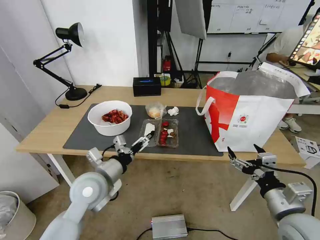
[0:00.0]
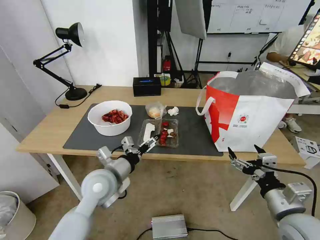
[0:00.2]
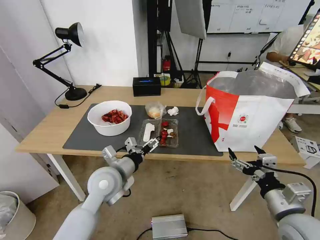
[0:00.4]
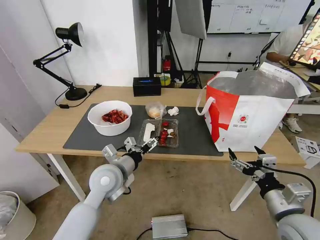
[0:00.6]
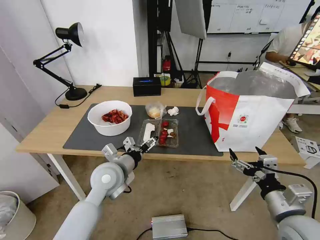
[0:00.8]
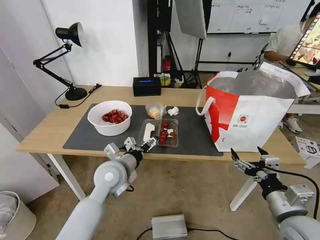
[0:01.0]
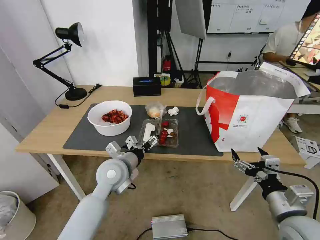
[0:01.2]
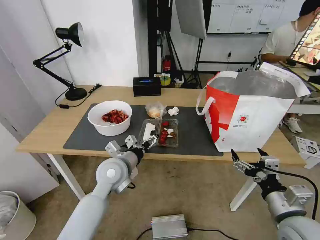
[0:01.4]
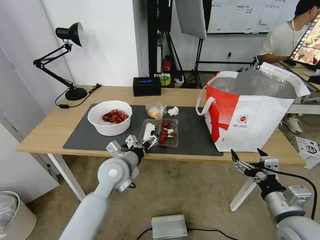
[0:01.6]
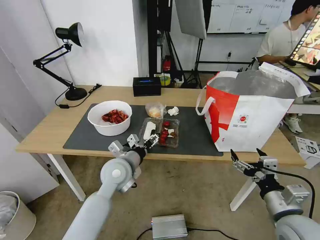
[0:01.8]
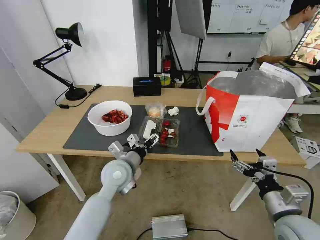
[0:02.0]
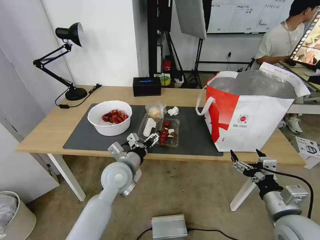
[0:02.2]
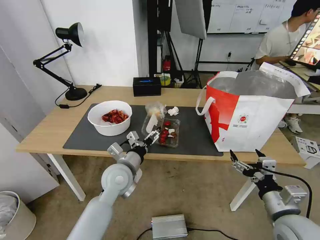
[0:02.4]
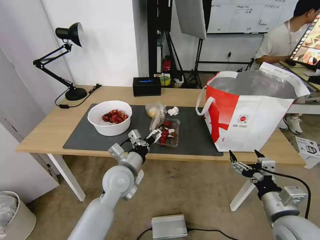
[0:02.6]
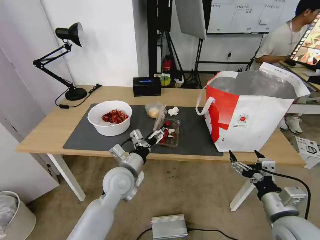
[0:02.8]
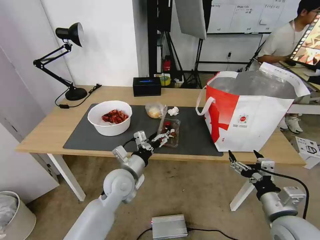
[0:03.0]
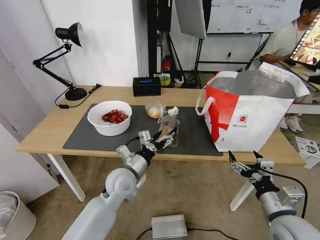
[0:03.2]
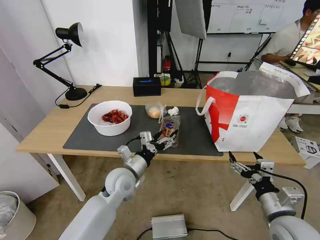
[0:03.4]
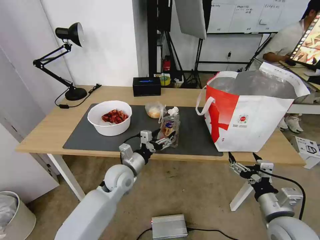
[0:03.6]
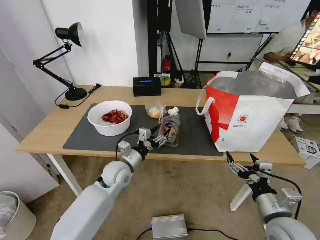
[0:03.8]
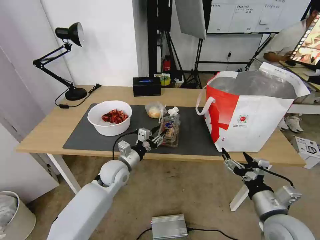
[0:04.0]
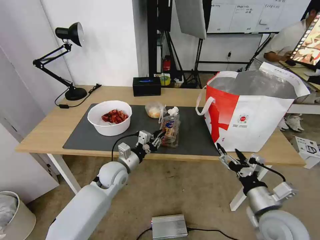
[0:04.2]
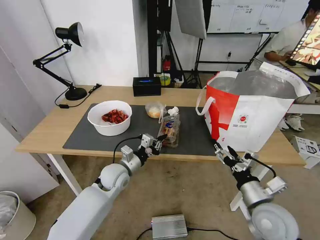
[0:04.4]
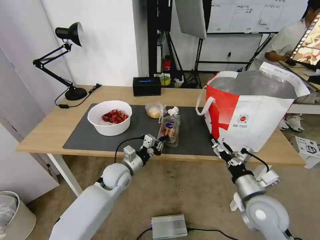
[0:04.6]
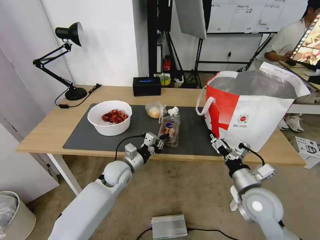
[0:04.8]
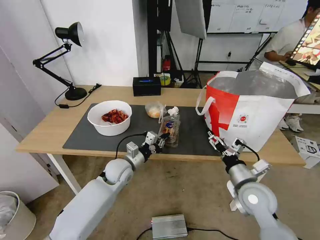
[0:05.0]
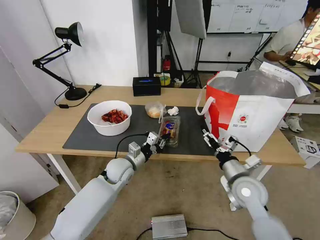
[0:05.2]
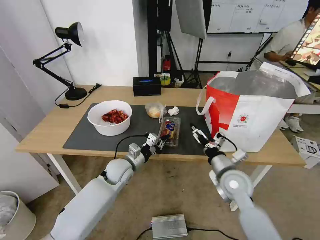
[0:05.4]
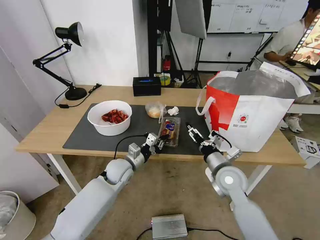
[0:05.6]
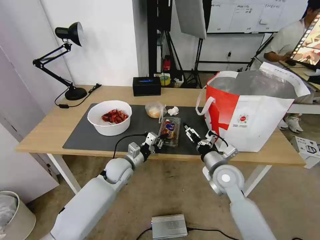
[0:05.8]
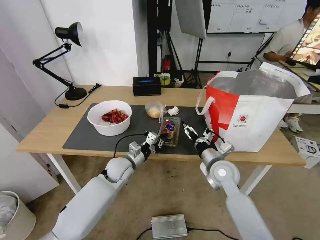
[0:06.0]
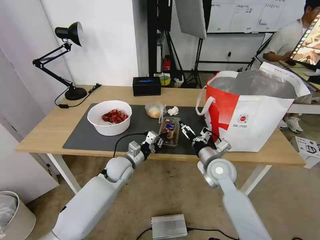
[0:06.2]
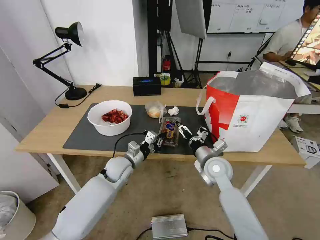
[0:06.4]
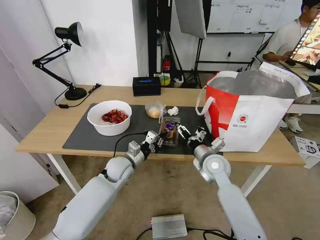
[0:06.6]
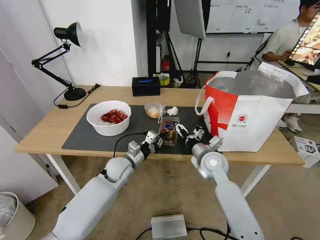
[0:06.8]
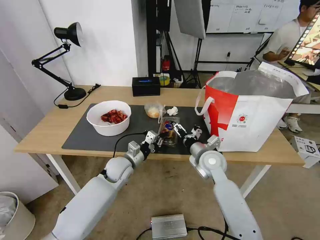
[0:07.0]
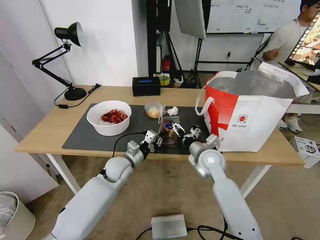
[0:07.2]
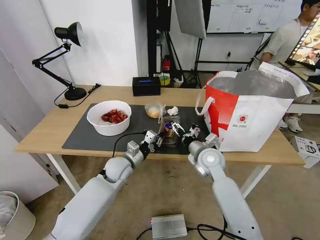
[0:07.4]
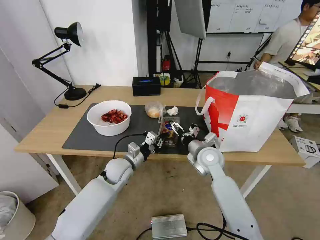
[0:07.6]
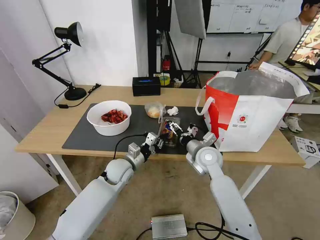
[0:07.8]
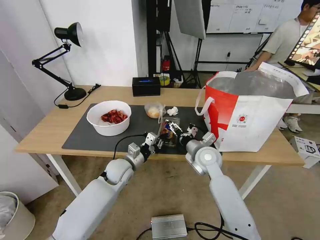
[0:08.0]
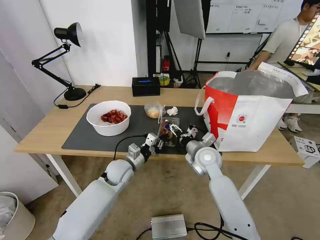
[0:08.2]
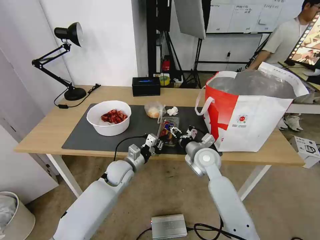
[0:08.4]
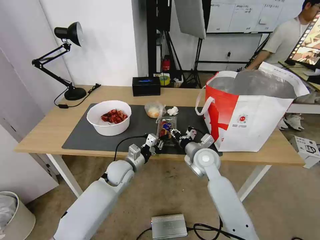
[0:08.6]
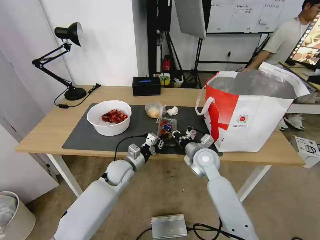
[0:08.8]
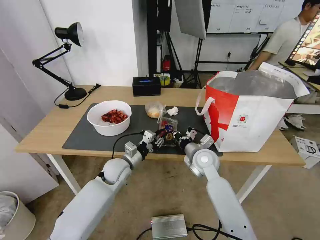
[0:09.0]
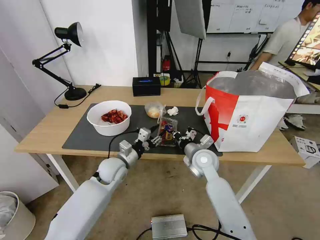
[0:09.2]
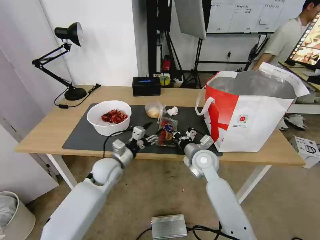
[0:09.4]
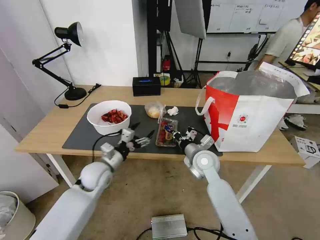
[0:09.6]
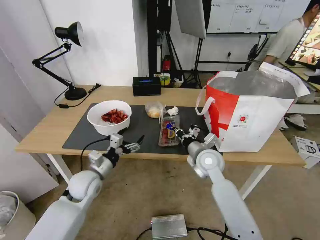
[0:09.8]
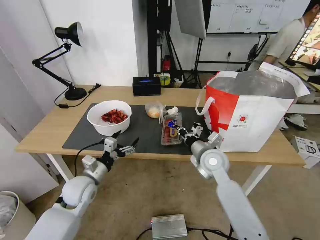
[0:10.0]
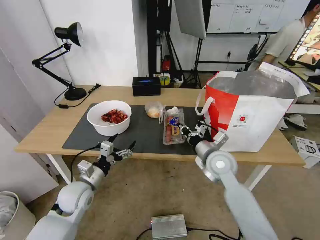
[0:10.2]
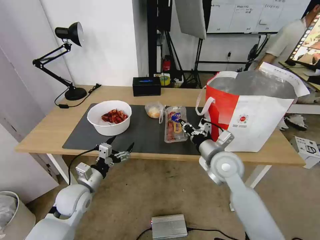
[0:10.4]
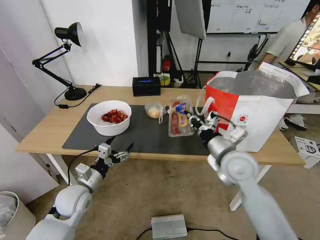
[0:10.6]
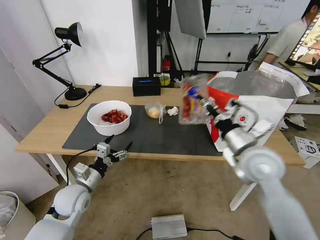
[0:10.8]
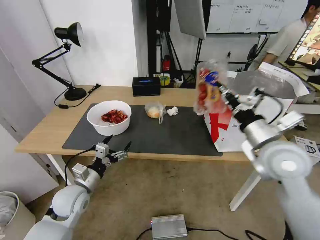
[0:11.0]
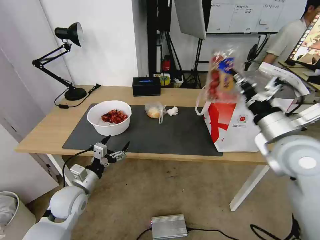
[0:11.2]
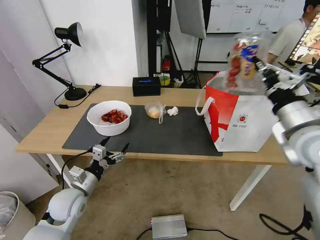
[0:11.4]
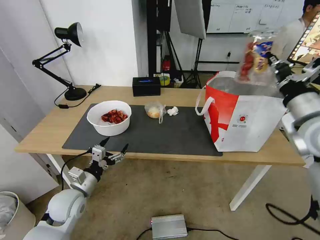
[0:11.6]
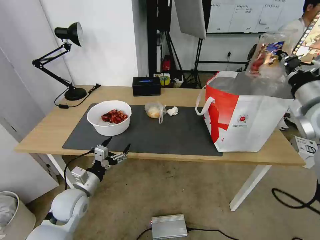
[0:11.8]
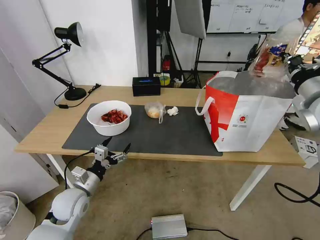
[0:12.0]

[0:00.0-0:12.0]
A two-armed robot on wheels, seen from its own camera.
Task of the whole recording: Pick up the trash from the table and place it into the takeout bag.
0:00.0 to 0:01.6: The left gripper shifts approximately 10 cm forward and to the right.
0:03.0 to 0:04.4: The left gripper travels forward by roughly 5 cm, and closes up.
0:04.4 to 0:06.0: The right gripper shifts some 20 cm forward and to the left.
0:06.0 to 0:07.6: The right gripper moves some 5 cm.
0:07.6 to 0:09.0: The right gripper closes its fingers.
0:09.0 to 0:10.4: The right gripper travels upward and backward by some 10 cm, while the left gripper travels to the left and backward by about 15 cm, and opens up.
0:10.4 to 0:12.0: The right gripper moves upward and to the right, approximately 30 cm.

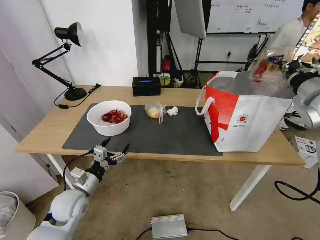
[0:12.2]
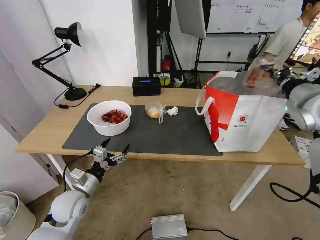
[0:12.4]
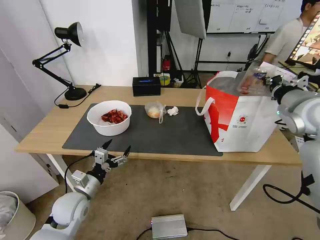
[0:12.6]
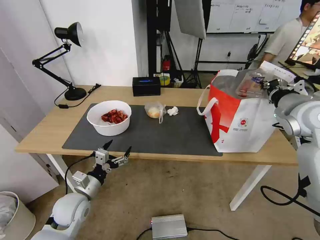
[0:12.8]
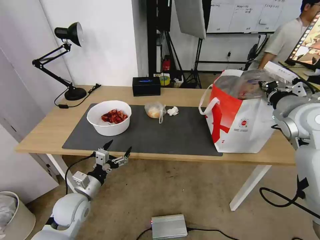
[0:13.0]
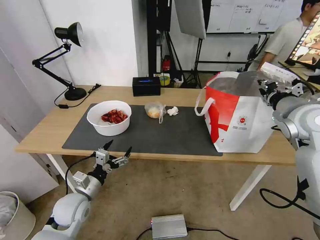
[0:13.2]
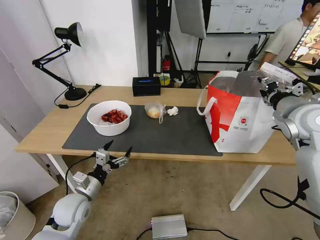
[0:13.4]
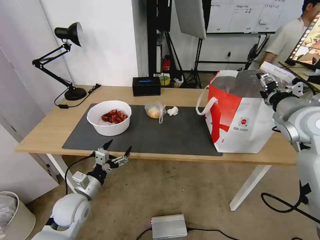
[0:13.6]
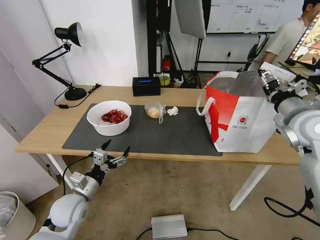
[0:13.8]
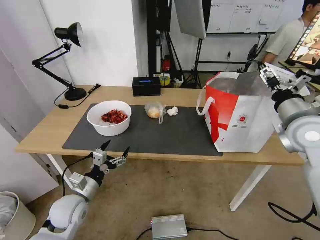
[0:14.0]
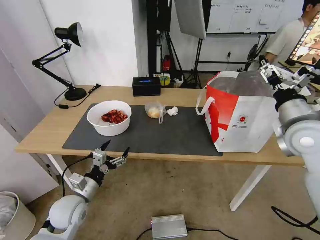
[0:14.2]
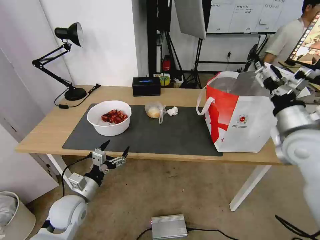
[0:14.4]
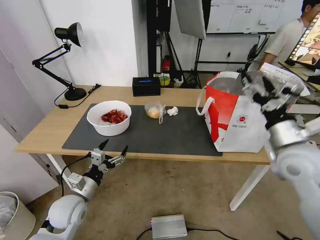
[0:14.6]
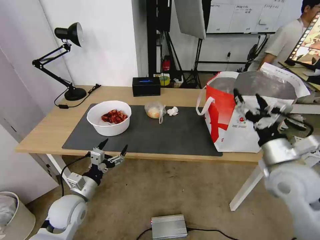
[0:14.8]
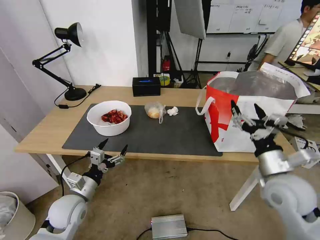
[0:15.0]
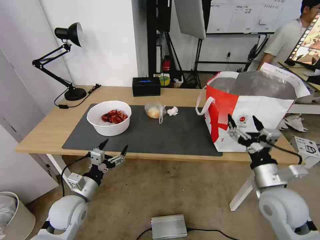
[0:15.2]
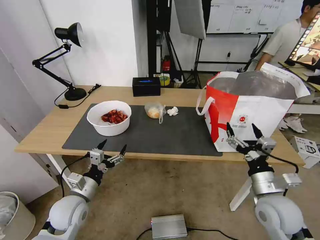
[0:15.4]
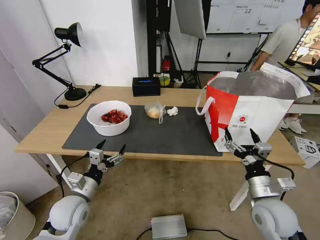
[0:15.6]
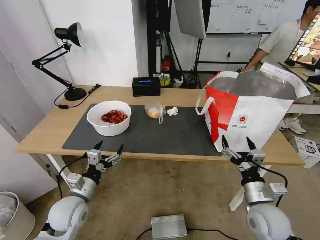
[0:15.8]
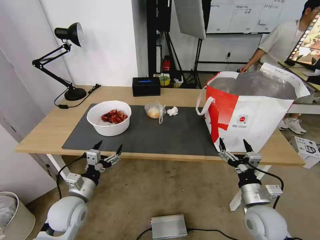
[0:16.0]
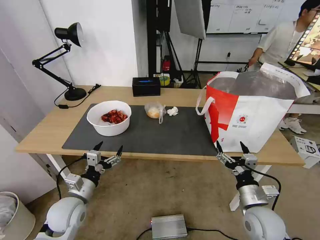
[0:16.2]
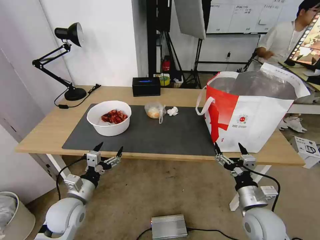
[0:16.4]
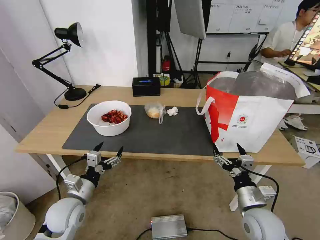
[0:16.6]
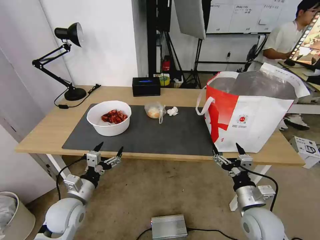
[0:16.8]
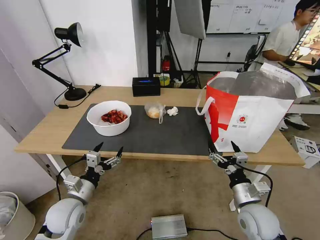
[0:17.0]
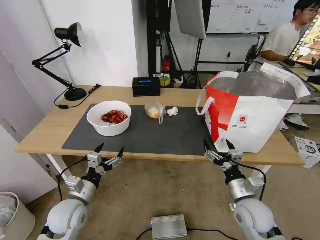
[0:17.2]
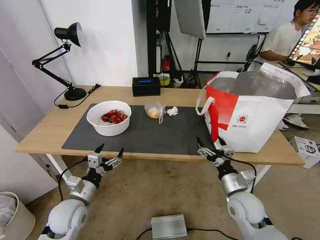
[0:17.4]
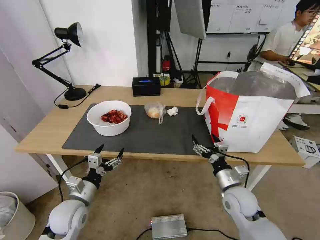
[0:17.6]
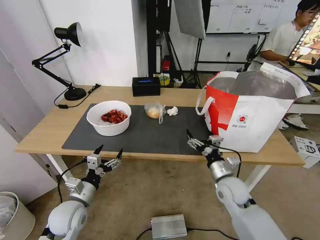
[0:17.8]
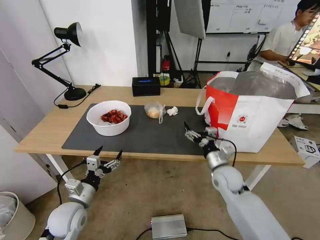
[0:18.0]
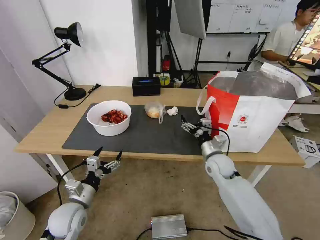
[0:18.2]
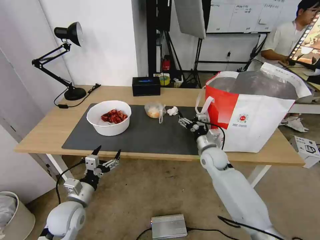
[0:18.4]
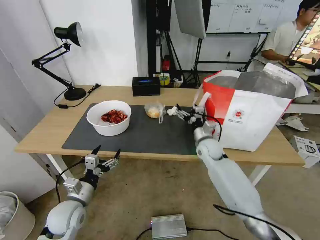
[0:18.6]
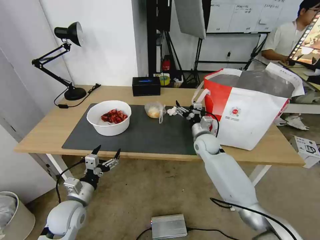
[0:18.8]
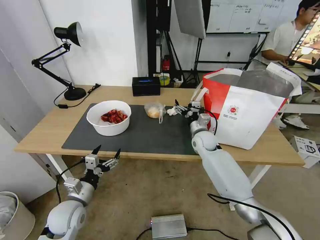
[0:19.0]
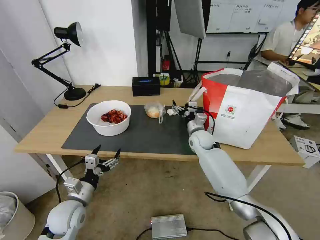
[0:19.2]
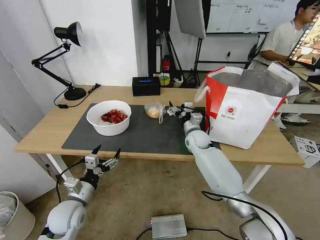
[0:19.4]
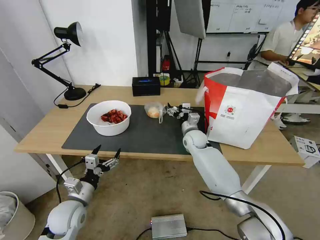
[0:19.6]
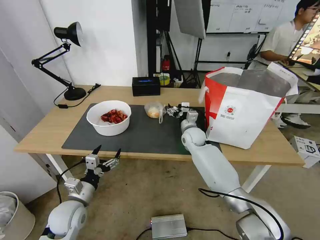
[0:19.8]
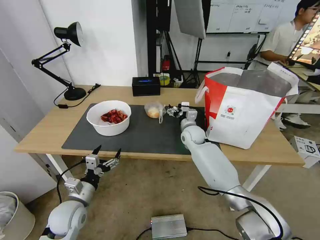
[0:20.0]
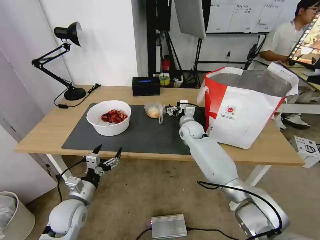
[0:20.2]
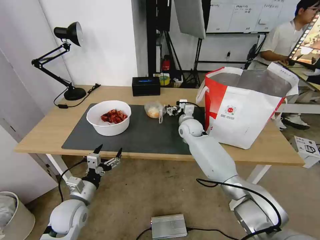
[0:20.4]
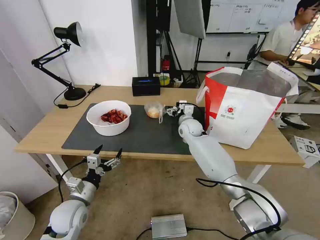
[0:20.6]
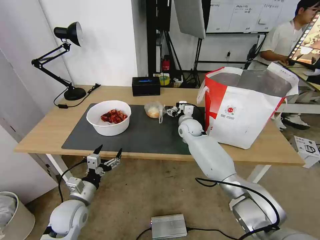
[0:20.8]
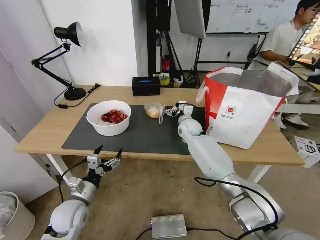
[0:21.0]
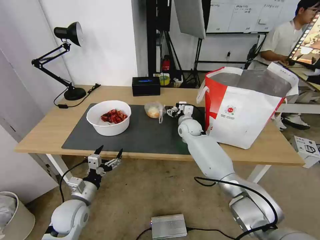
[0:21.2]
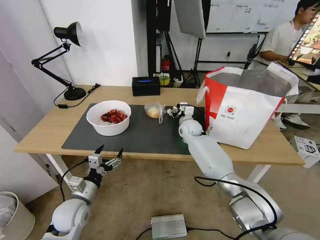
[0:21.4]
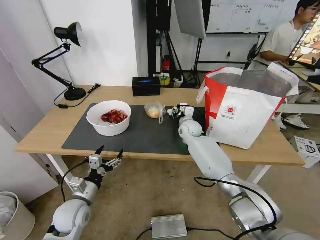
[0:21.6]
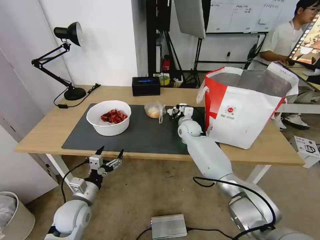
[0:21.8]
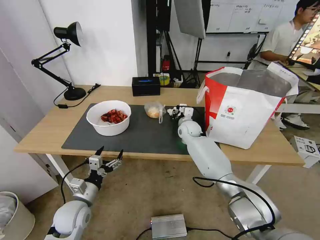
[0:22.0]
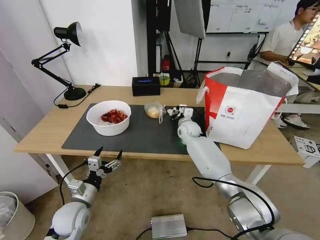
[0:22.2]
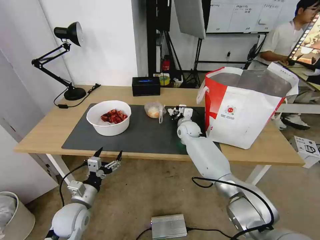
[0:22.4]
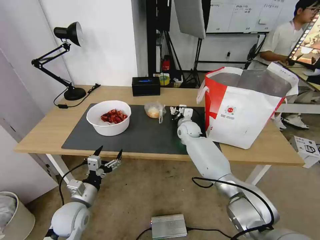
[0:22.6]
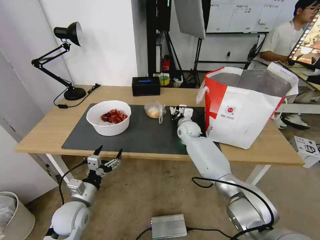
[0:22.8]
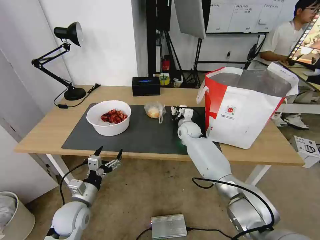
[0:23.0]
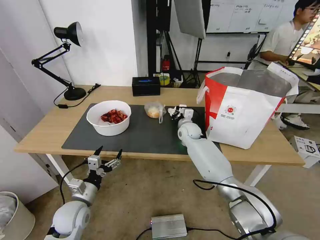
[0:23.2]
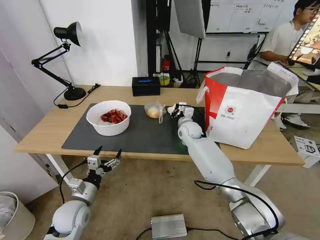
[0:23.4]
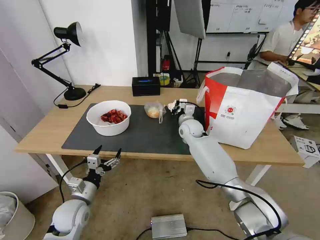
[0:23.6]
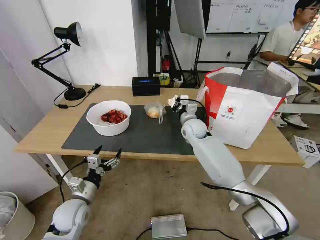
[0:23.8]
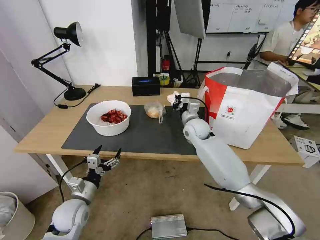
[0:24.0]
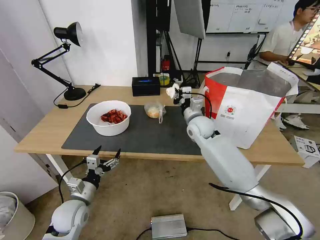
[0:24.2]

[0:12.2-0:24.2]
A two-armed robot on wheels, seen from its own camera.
Task of the whole recording: Pick up the trash from the table and place it into the takeout bag.
0:12.2 to 0:13.8: The right gripper moves downward, approximately 5 cm, and opens.
0:13.8 to 0:15.2: The right gripper shifts some 20 cm downward and backward.
0:15.2 to 0:16.6: The right gripper travels downward by some 10 cm.
0:16.6 to 0:18.2: The right gripper moves forward, approximately 20 cm.
0:18.2 to 0:19.8: The right gripper goes about 15 cm forward and to the left.
0:19.8 to 0:21.2: There are only small adjustments of the grippers.
0:21.2 to 0:22.6: The right gripper closes up.
0:22.6 to 0:24.2: The right gripper goes roughly 10 cm upward and backward.
